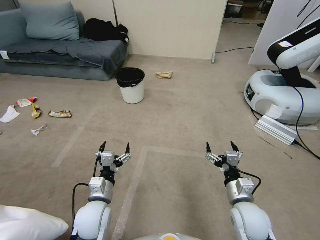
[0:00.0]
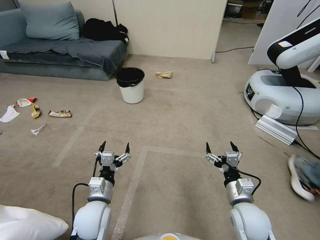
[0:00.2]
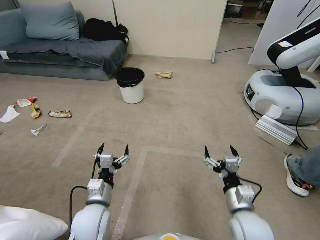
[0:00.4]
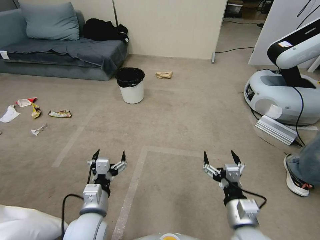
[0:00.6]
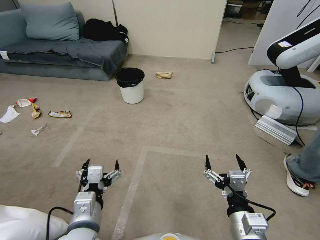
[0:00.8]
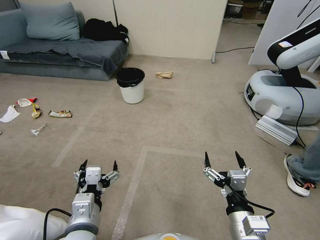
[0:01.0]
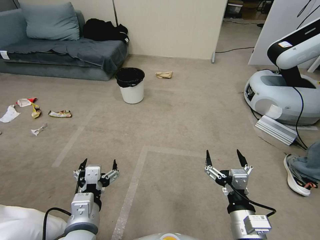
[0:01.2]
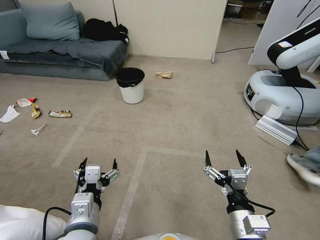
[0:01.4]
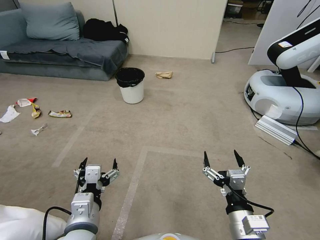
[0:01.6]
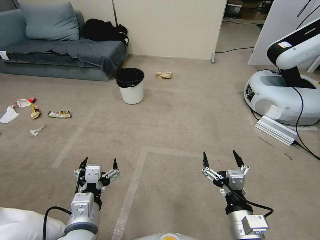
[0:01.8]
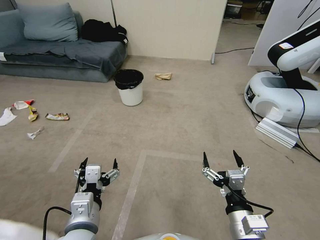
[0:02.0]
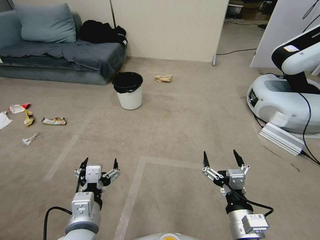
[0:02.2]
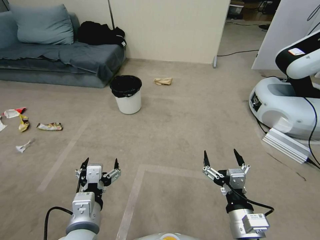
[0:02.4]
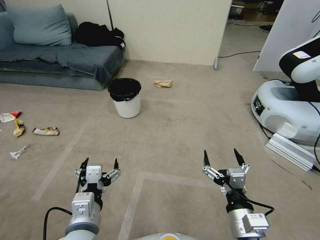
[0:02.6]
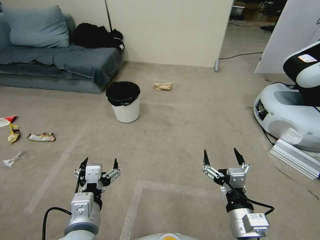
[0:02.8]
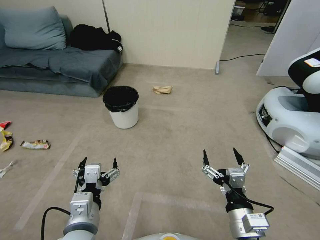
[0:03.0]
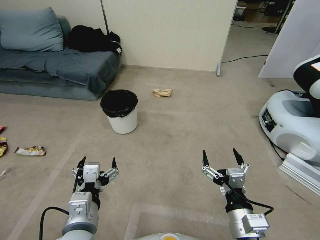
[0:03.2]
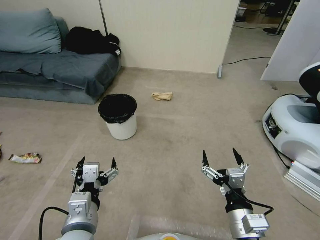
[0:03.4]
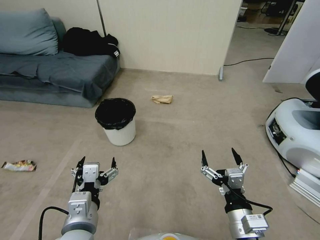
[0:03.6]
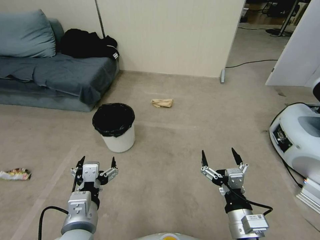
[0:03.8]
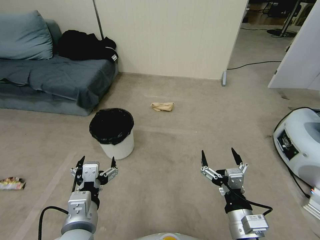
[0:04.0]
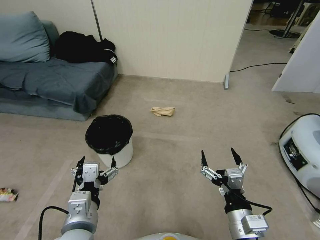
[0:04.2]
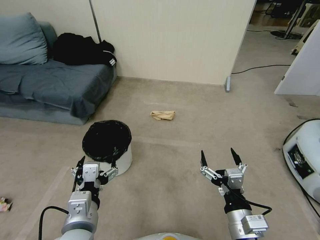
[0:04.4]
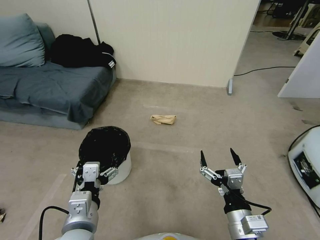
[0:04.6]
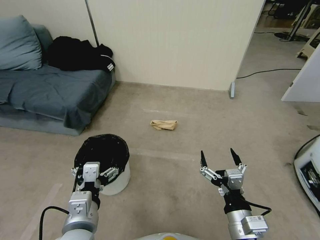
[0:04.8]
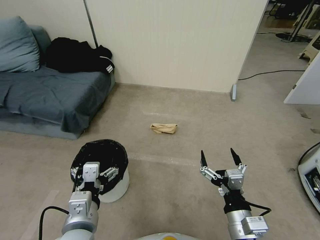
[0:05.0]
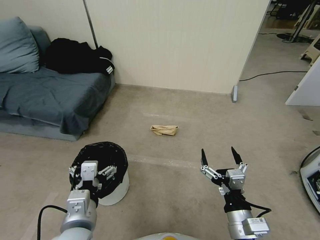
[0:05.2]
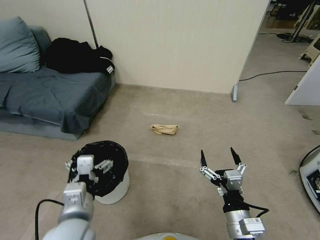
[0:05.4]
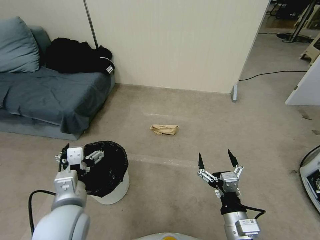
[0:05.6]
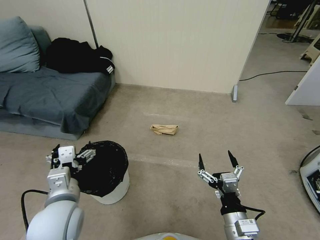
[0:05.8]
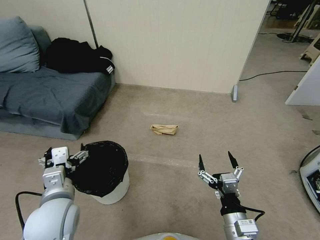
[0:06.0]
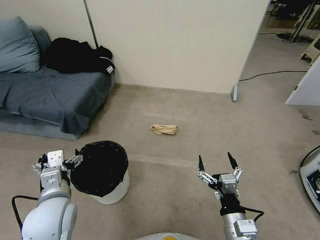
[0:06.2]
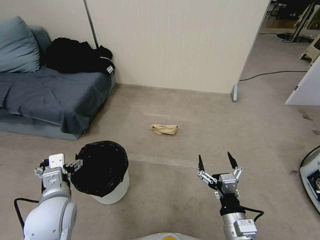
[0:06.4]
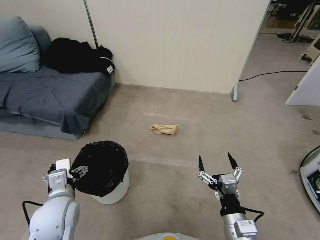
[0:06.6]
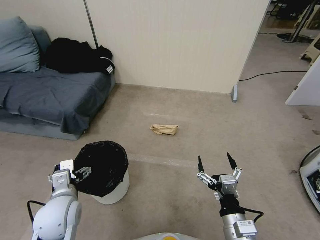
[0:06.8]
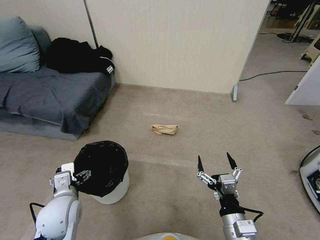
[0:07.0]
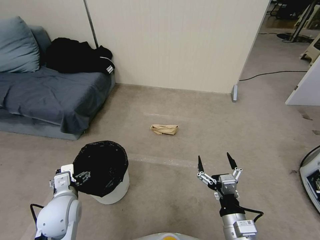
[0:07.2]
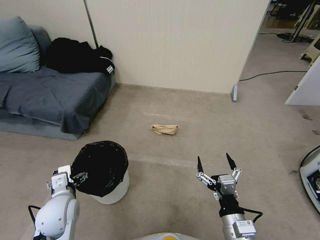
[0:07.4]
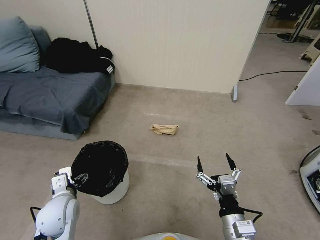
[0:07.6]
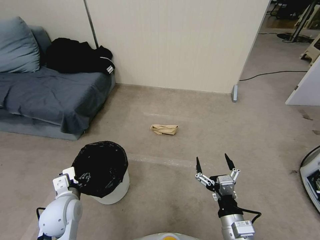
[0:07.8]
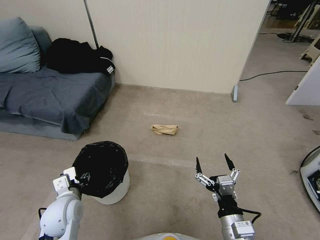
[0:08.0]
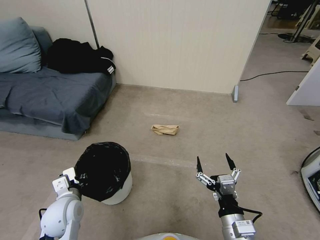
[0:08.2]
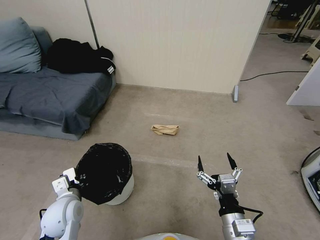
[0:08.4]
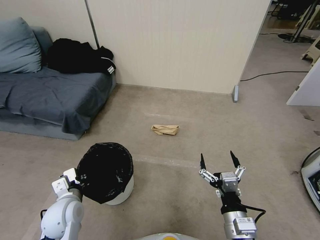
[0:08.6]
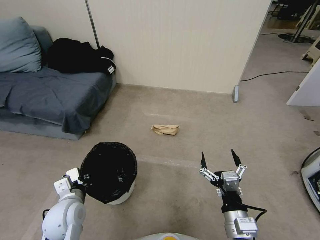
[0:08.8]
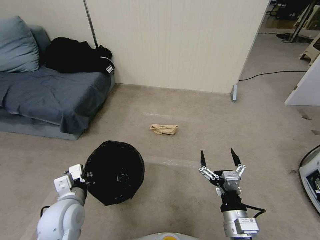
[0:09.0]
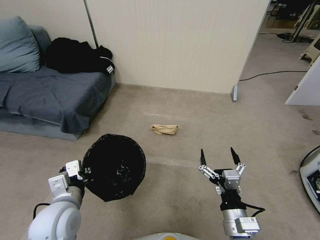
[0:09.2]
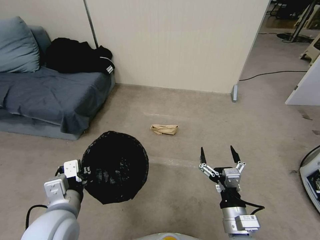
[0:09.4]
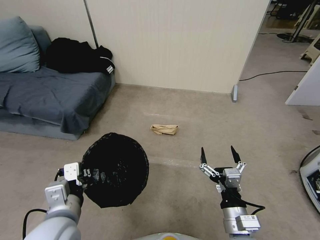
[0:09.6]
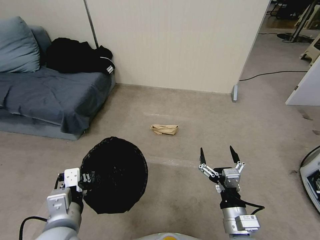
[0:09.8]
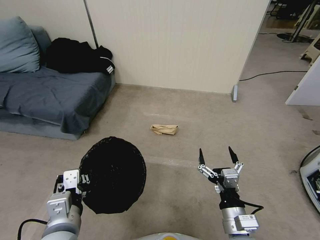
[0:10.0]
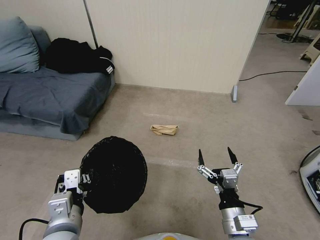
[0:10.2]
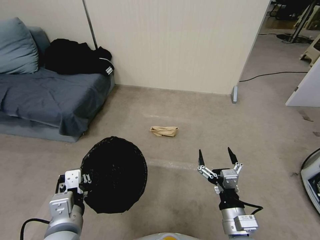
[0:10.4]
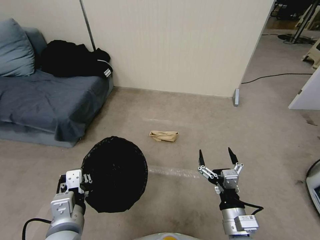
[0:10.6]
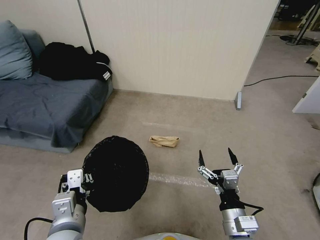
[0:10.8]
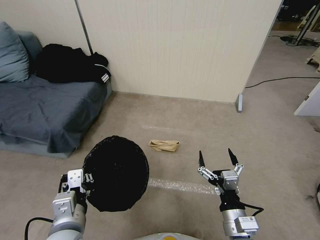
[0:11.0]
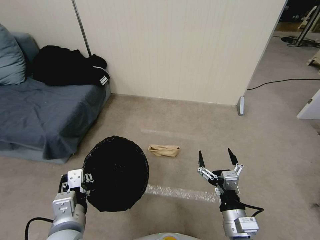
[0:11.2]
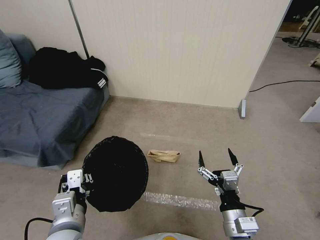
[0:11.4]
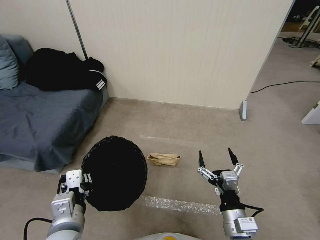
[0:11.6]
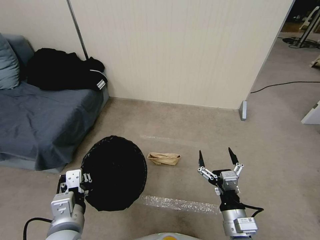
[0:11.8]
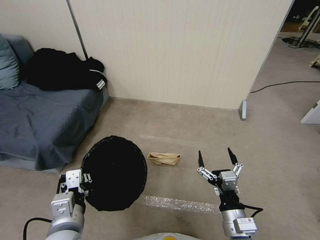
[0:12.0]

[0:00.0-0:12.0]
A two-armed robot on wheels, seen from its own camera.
Task of the whole recording: Pick up the trash bin, then pick up the garbage from the floor and place it into the trash bin.
0:04.4 to 0:06.0: The left gripper travels to the left and forward by about 10 cm.
0:06.0 to 0:07.6: The left gripper is displaced downward by roughly 10 cm.
0:07.6 to 0:09.0: The left gripper shifts by roughly 5 cm, and closes.
0:09.0 to 0:10.4: The left gripper is displaced backward and upward by roughly 10 cm.

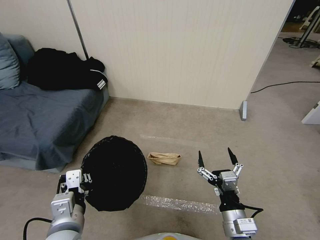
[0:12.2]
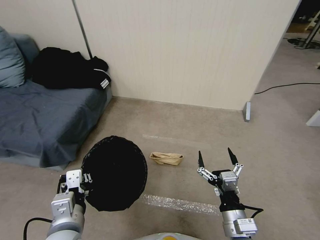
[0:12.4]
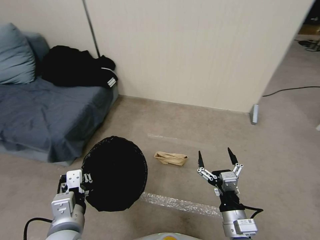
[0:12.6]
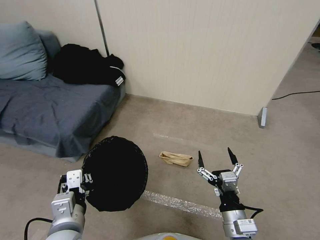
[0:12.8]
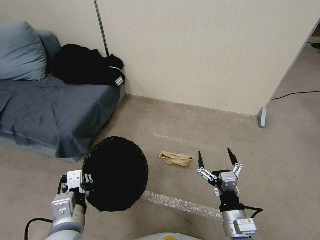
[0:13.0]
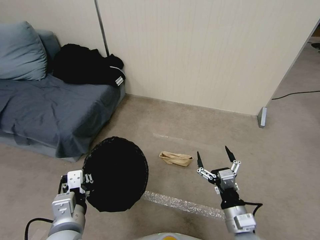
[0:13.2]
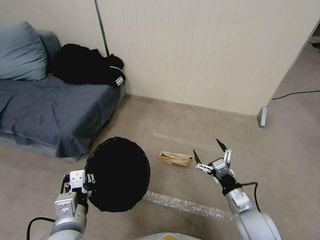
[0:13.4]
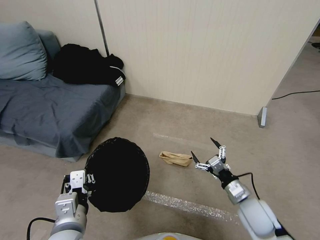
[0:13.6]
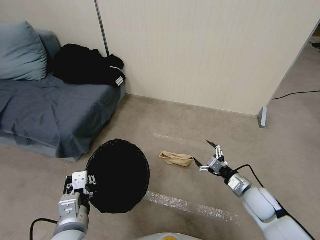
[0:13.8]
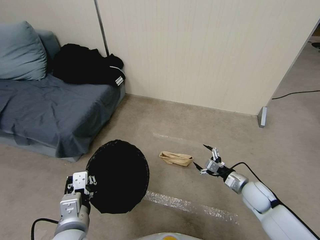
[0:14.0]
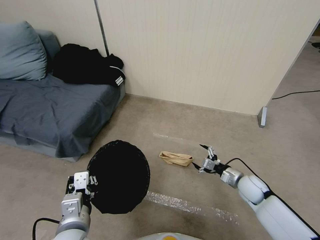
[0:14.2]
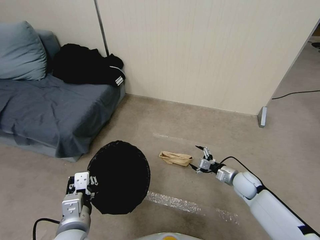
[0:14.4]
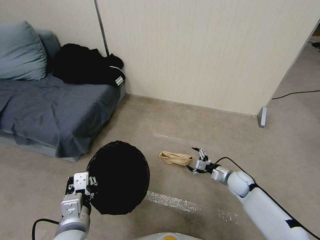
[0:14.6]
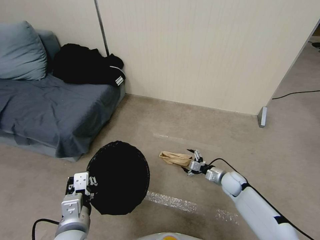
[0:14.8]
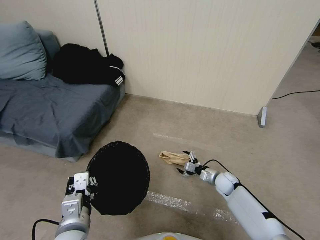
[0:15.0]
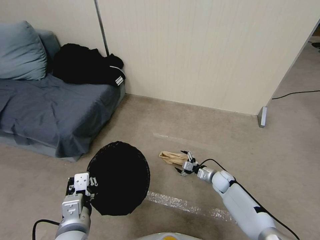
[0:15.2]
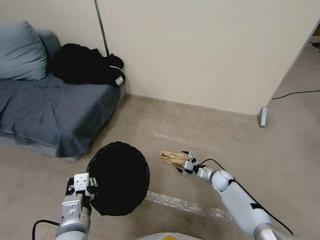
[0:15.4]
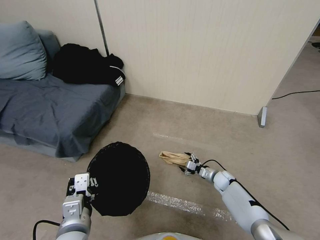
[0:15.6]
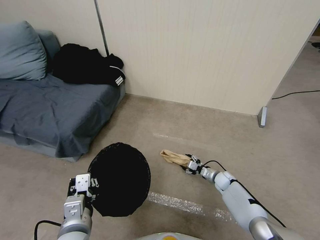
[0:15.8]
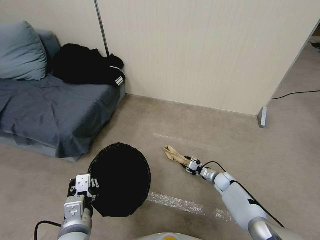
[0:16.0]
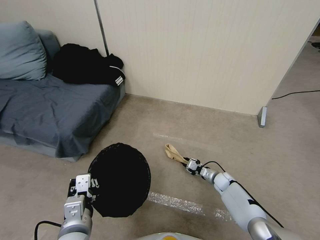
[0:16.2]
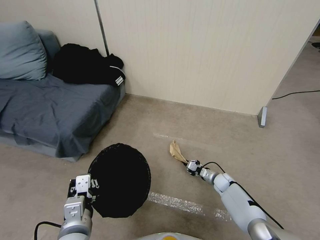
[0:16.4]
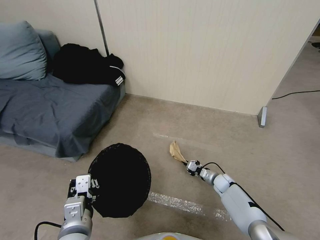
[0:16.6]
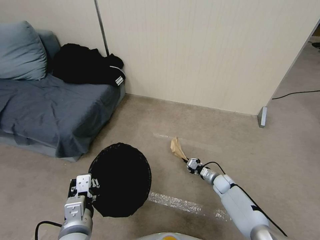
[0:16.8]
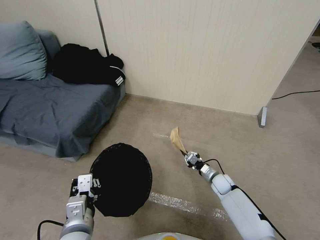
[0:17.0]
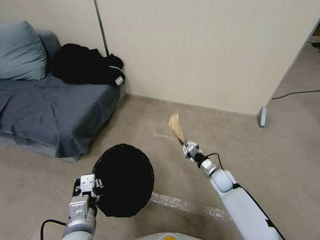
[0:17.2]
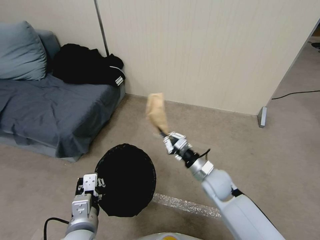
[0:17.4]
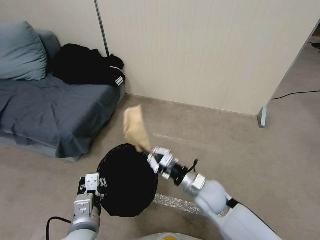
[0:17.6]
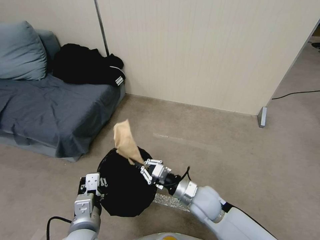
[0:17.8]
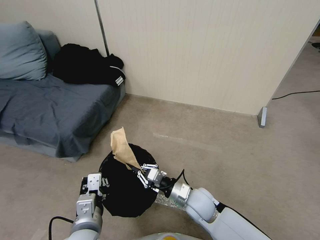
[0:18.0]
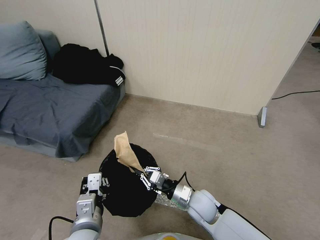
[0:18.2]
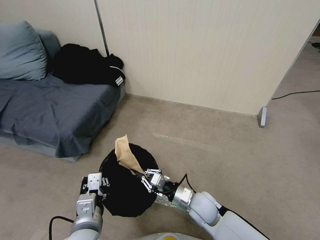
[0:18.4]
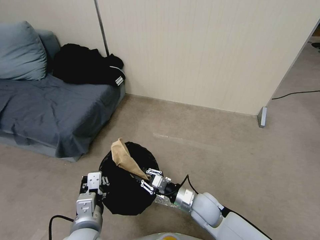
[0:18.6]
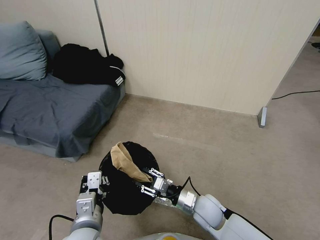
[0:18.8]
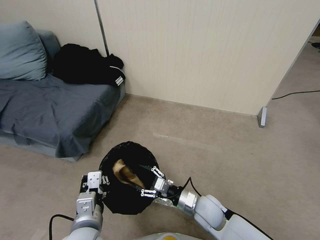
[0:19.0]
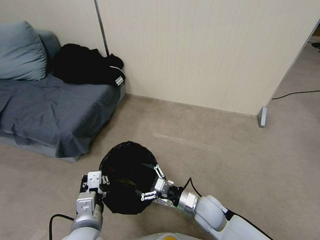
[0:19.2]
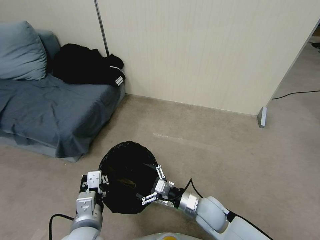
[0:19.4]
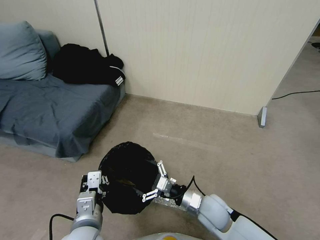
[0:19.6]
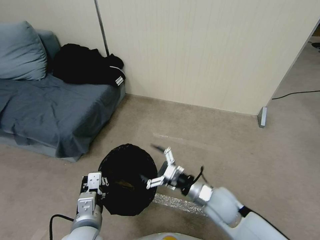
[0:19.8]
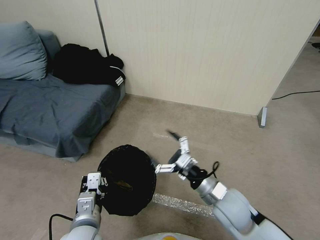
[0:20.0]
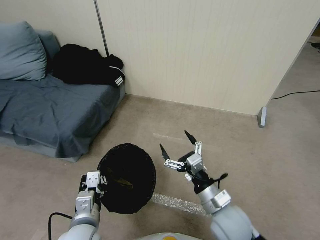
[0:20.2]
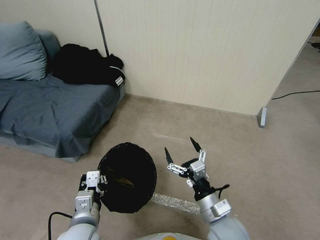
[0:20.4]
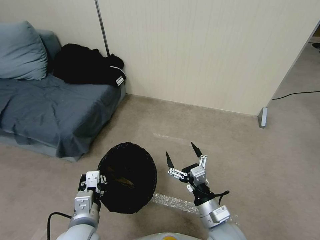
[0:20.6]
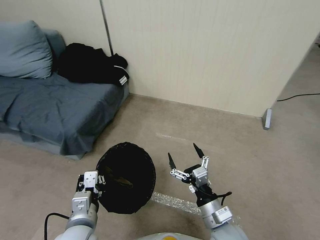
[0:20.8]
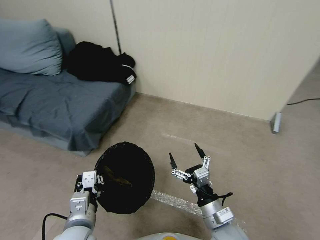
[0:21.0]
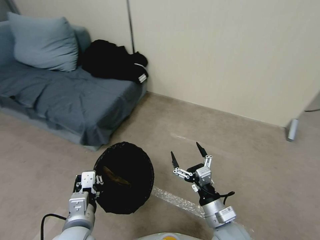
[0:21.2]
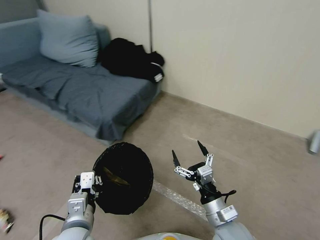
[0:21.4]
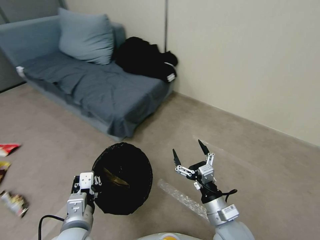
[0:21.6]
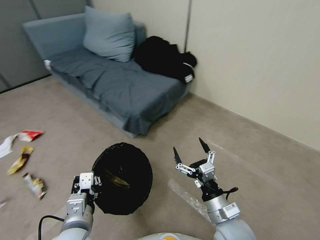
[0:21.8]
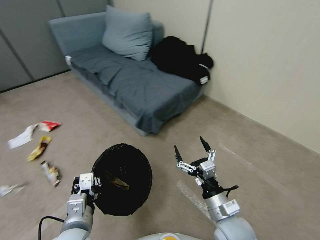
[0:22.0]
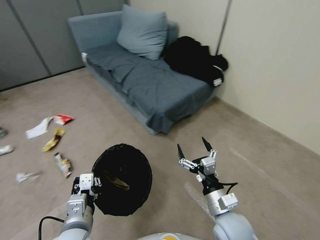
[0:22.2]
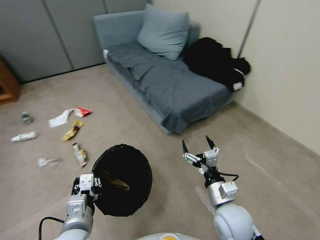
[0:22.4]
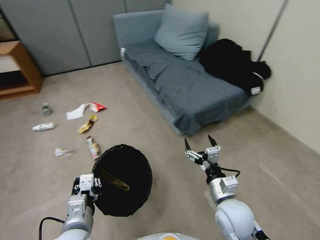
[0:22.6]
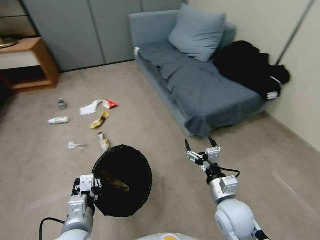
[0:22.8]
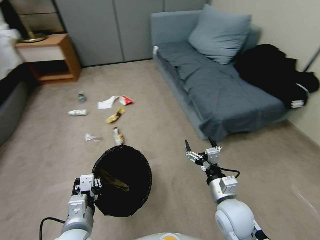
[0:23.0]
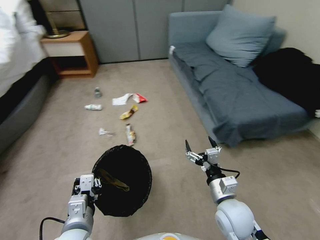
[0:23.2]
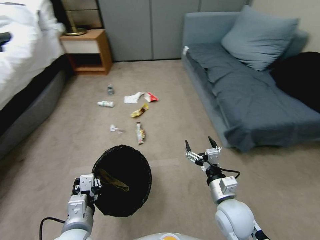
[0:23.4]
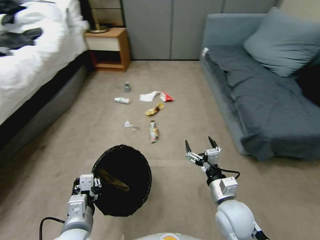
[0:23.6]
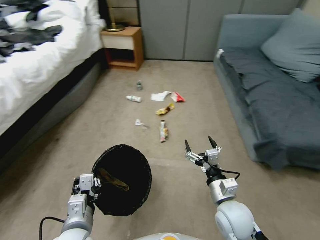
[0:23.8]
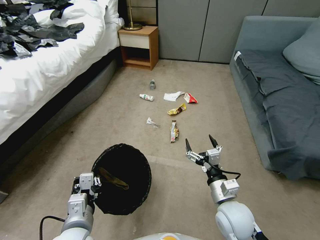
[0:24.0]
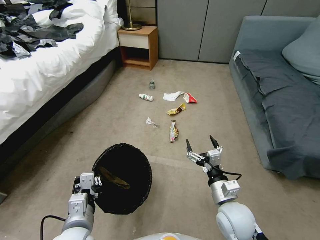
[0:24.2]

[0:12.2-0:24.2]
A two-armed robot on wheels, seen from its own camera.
Task of the whole recording: Pick up the trash bin, then pick up the garbage from the floor and place it into the trash bin.
0:12.2 to 0:13.8: The right gripper moves forward, to the right and downward, about 20 cm.
0:13.8 to 0:15.2: The right gripper shifts about 20 cm downward and forward.
0:15.2 to 0:16.6: The right gripper closes.
0:16.6 to 0:18.2: The right gripper is displaced to the left, upward and backward by about 25 cm.
0:18.2 to 0:19.8: The right gripper heads upward, covering approximately 5 cm, and opens.
0:19.8 to 0:21.2: The right gripper travels backward by roughly 10 cm.
0:21.2 to 0:22.6: The right gripper moves forward, approximately 5 cm.
